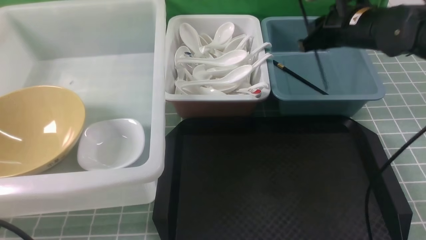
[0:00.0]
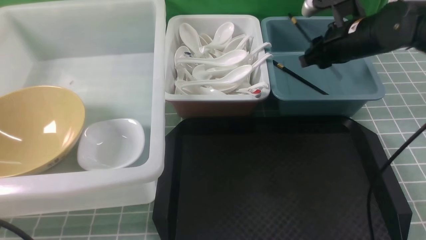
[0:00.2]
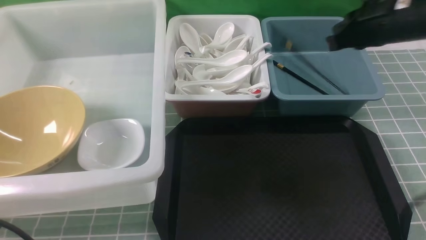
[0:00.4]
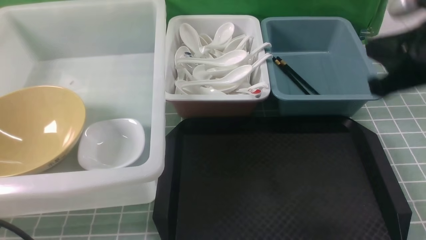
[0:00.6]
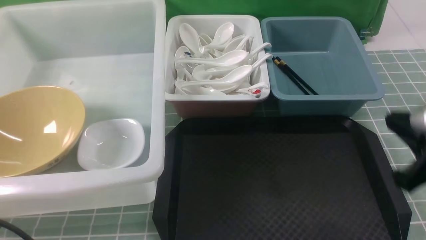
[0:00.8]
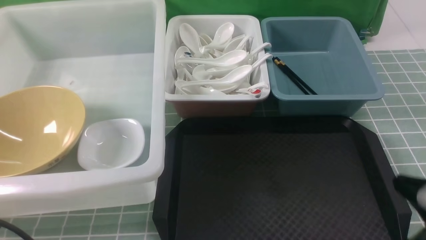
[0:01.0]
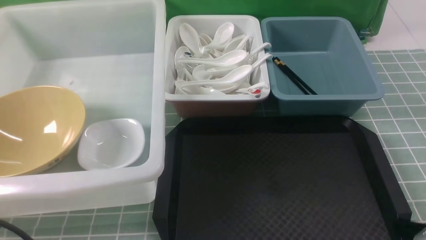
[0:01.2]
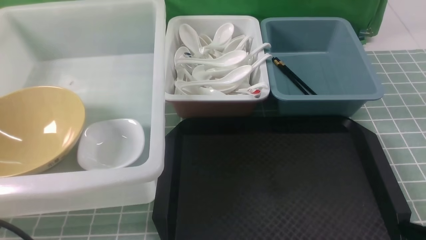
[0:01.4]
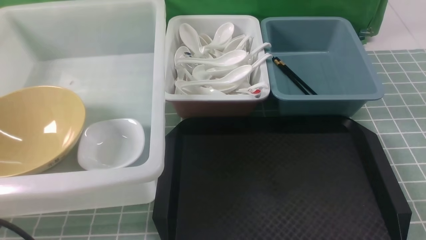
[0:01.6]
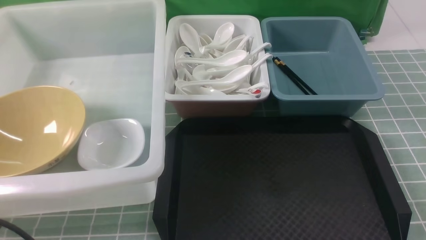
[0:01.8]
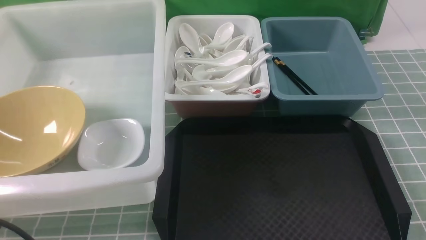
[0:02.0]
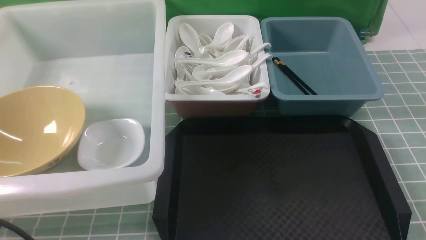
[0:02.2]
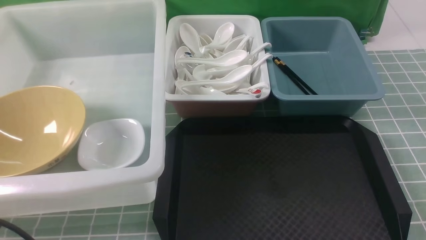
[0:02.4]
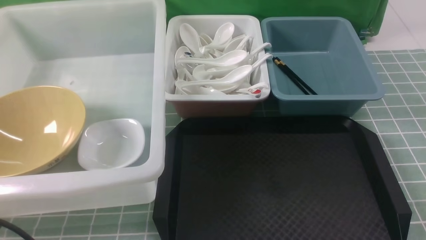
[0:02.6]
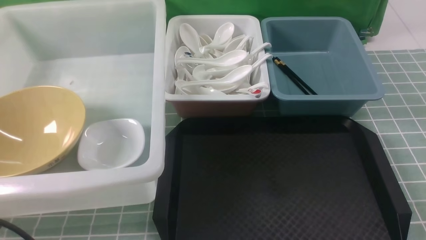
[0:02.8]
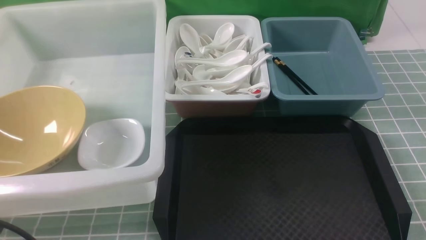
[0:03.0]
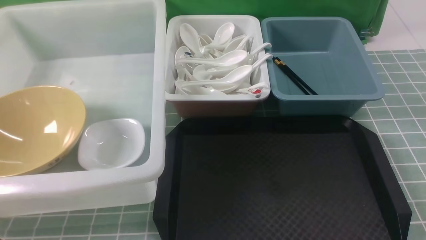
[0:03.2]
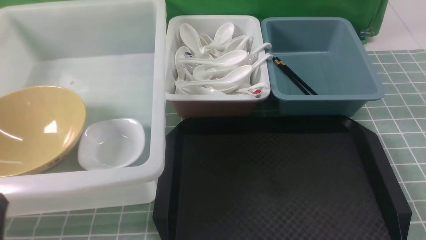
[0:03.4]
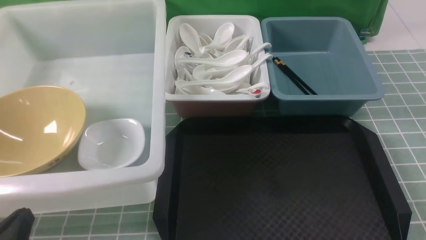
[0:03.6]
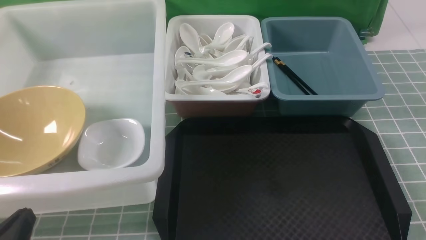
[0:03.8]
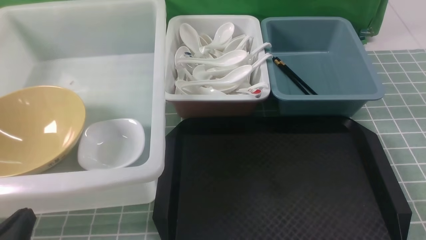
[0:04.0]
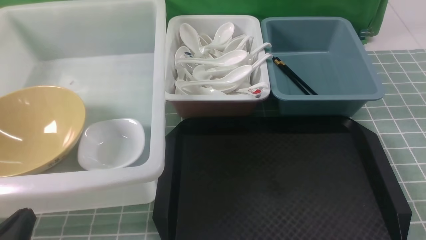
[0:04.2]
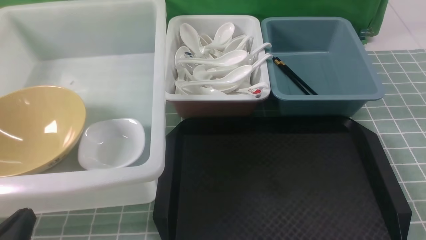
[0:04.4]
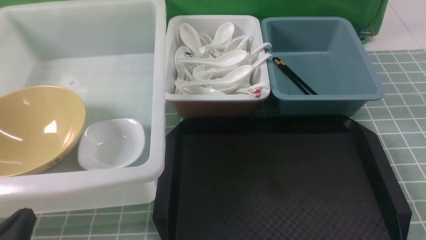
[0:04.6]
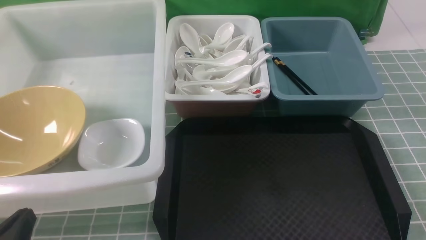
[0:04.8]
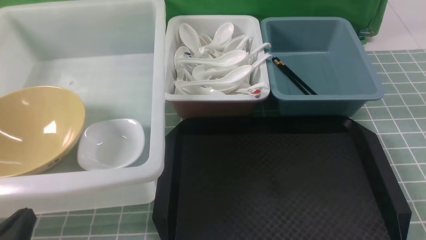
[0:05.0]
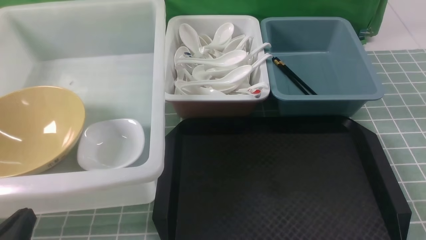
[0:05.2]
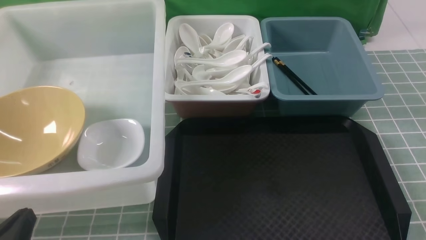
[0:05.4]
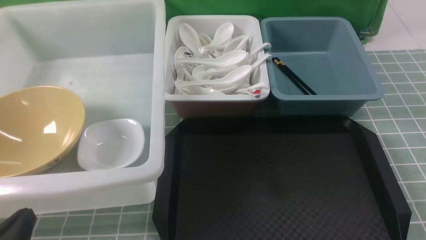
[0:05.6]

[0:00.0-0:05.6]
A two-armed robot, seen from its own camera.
Task of the whole recording: on blue table put chopsticks spoon bowls plates into blue grey white boxes.
0:00.0 to 0:01.4: The right gripper travels backward by about 35 cm, and closes up.
0:02.8 to 0:04.2: The left gripper moves downward, roughly 10 cm.
0:04.2 to 0:05.6: Both grippers stay about where they are.
